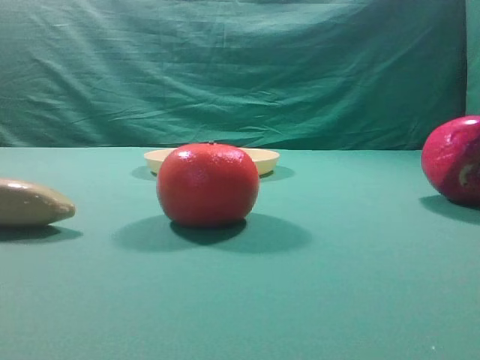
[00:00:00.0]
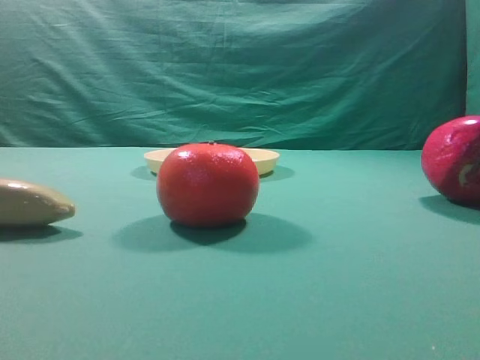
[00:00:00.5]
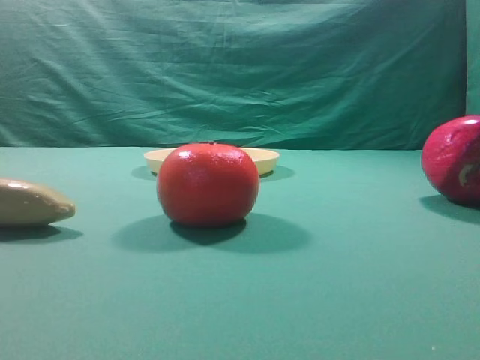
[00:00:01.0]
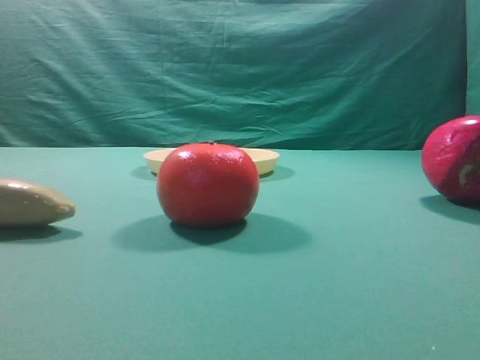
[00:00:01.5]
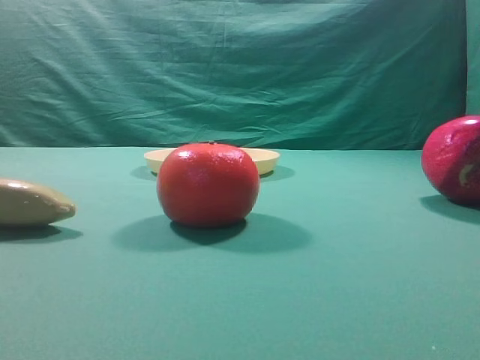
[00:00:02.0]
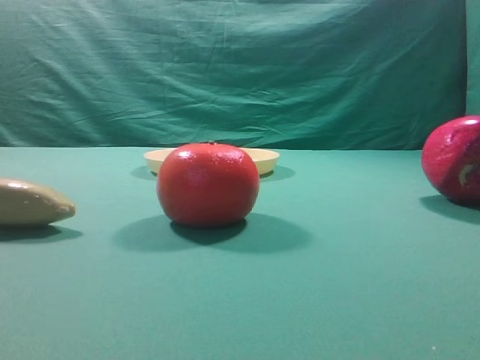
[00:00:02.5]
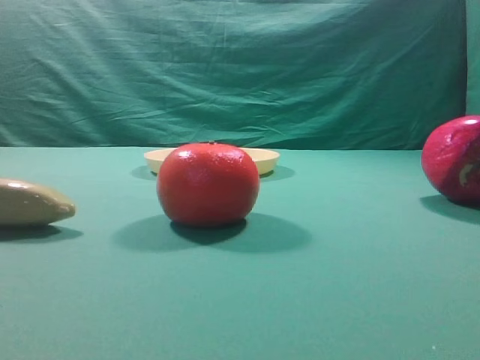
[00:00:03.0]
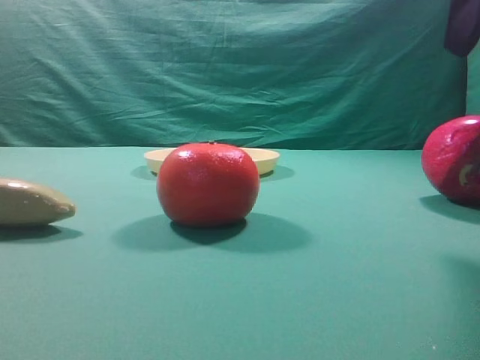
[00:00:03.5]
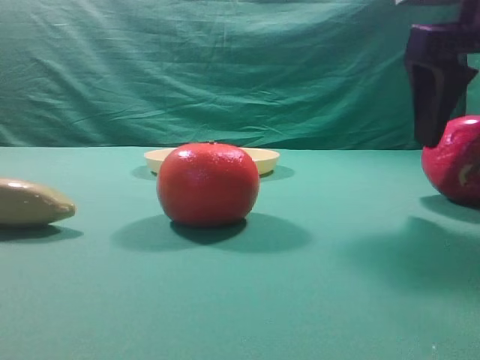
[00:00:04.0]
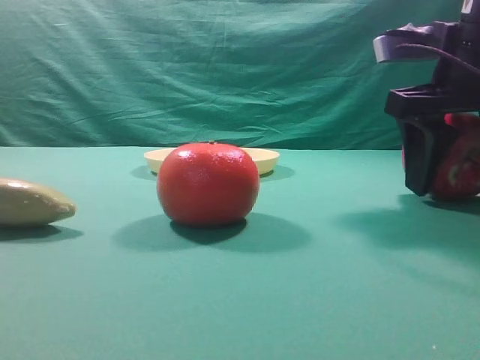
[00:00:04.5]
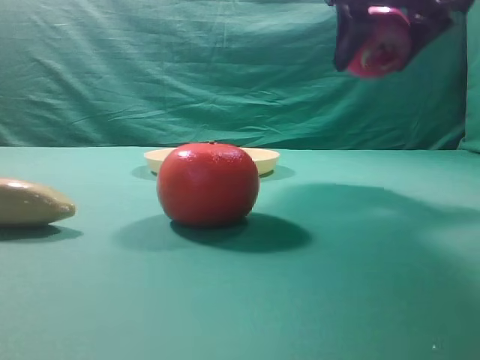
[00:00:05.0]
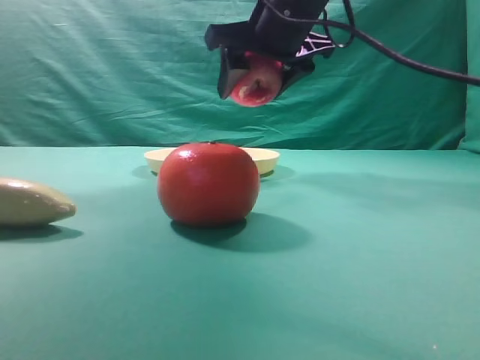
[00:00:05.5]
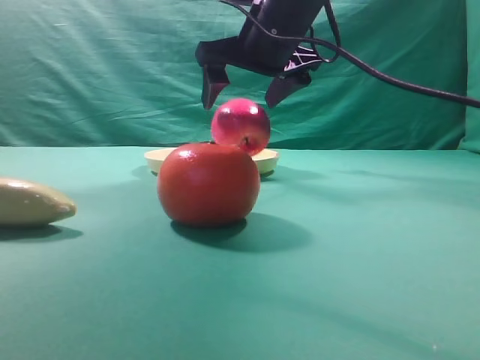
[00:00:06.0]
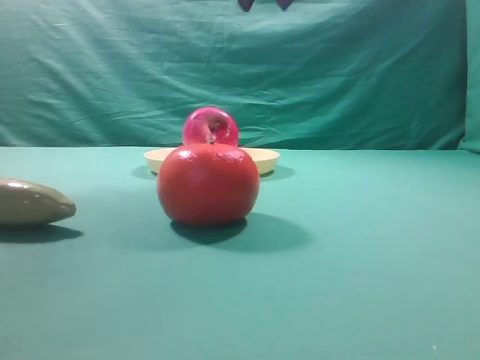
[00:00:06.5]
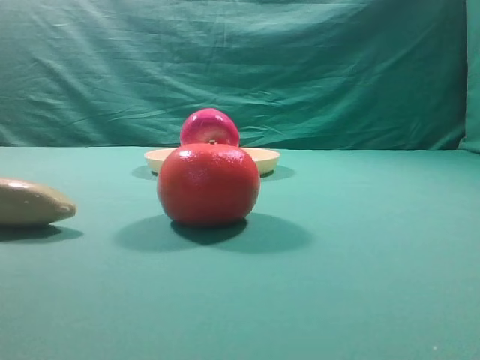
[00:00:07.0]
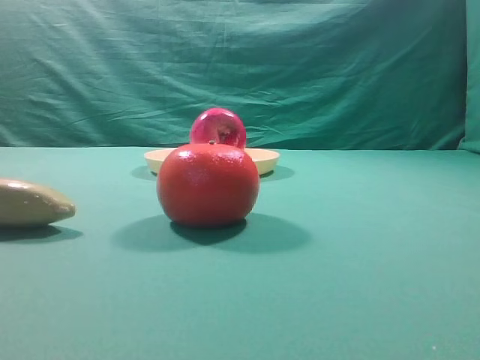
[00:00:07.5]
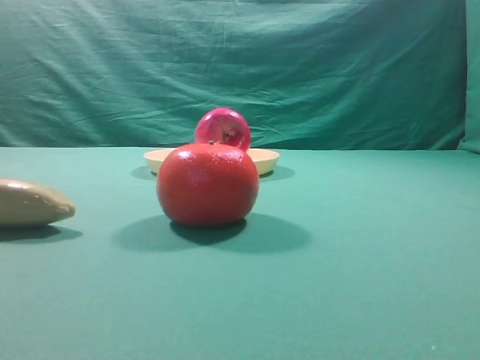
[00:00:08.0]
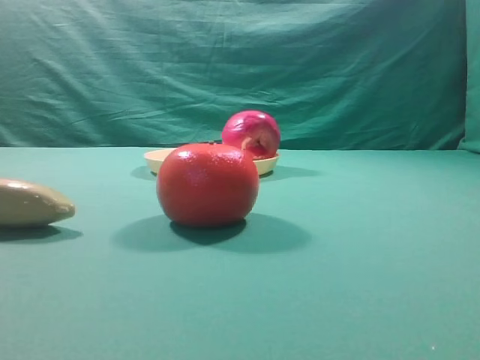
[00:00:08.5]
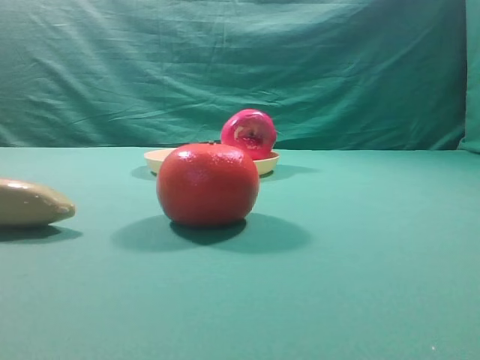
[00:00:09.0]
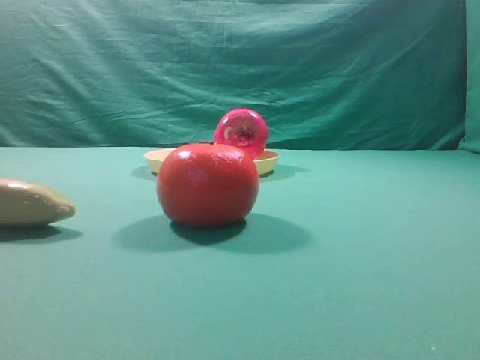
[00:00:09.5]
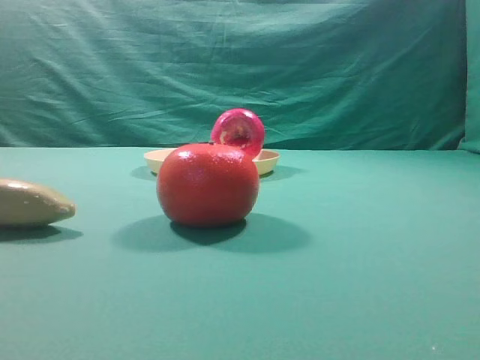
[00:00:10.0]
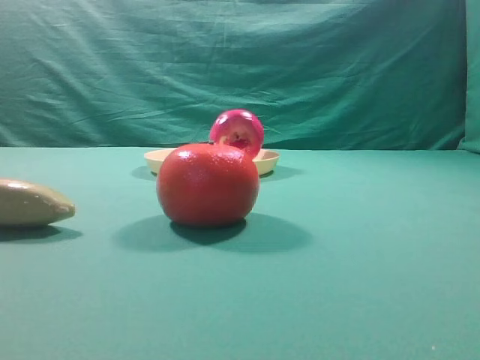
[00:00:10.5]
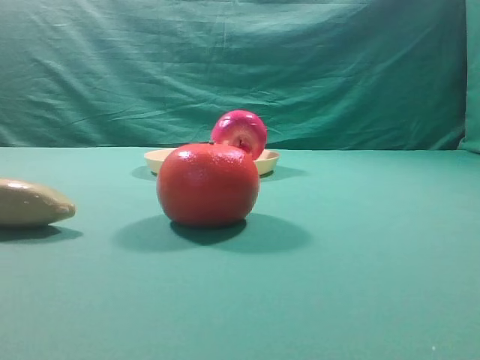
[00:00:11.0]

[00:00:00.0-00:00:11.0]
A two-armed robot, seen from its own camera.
Task of the whole recording: grasp the apple and place it into the yellow plate.
Step, 00:00:00.0 to 00:00:04.5: Grasp the fruit that can keep the doctor away.
Step, 00:00:05.0 to 00:00:06.0: Place the picked object into the yellow plate.

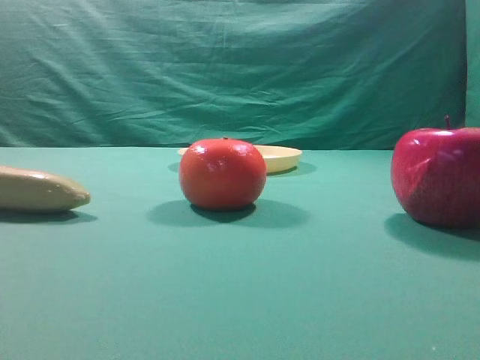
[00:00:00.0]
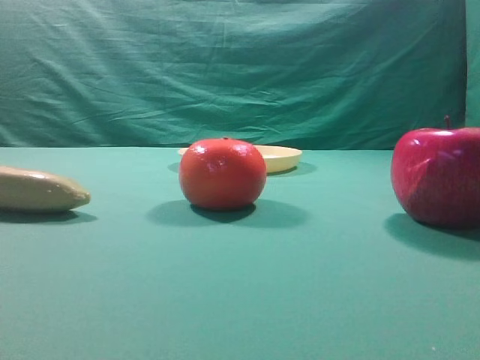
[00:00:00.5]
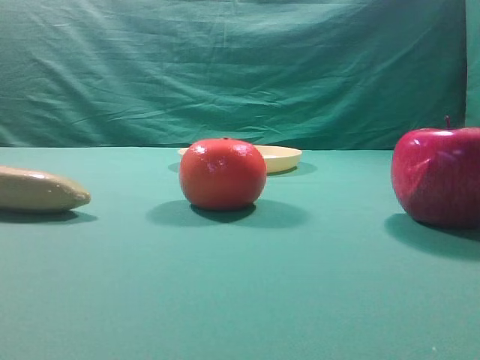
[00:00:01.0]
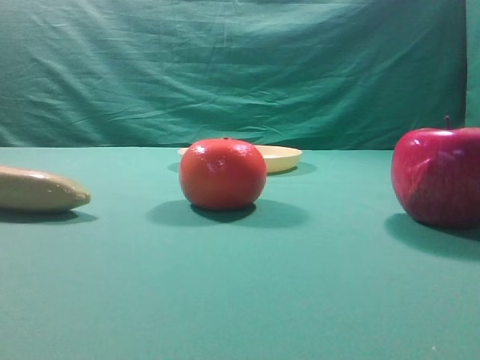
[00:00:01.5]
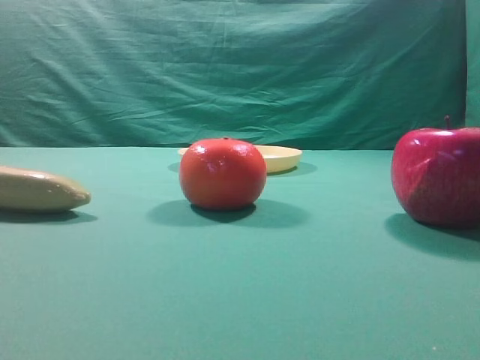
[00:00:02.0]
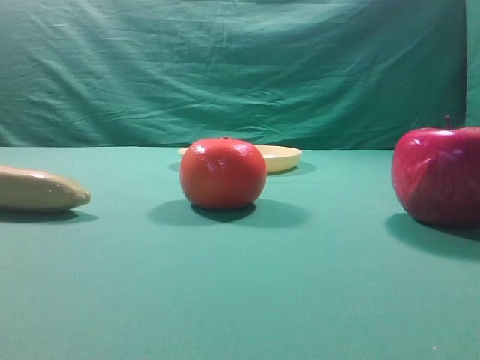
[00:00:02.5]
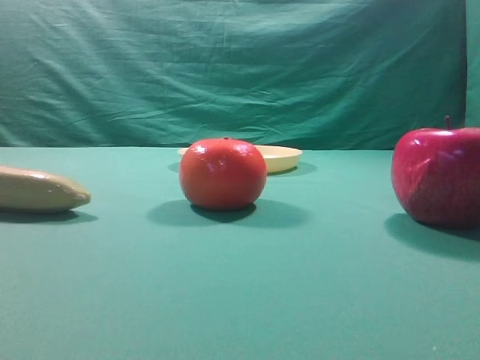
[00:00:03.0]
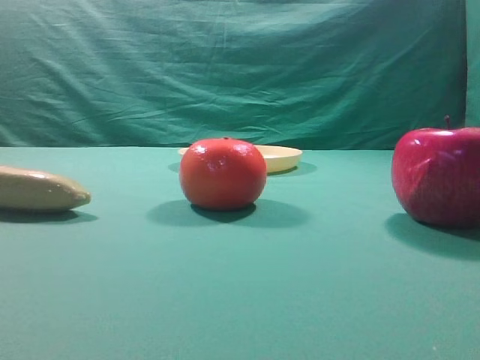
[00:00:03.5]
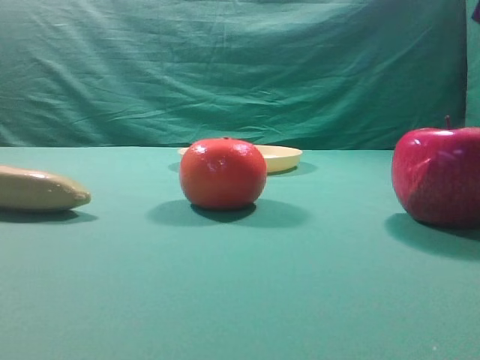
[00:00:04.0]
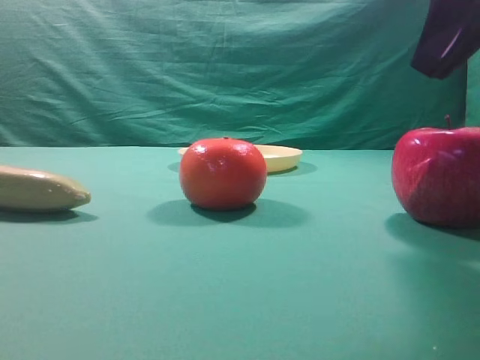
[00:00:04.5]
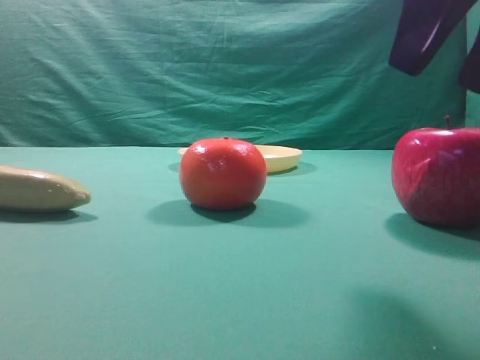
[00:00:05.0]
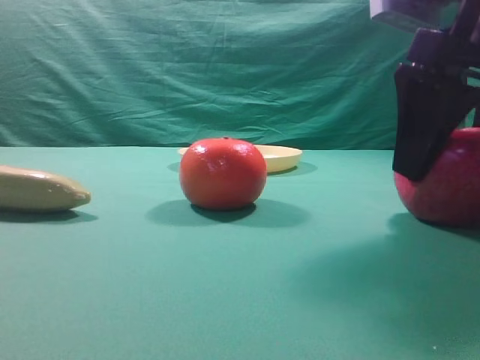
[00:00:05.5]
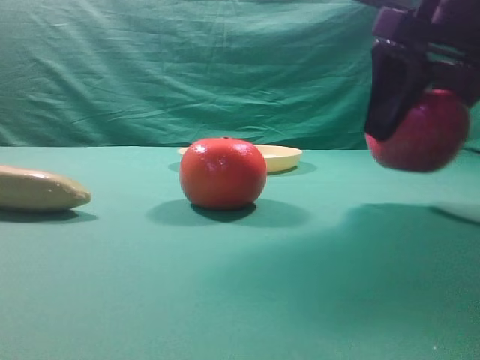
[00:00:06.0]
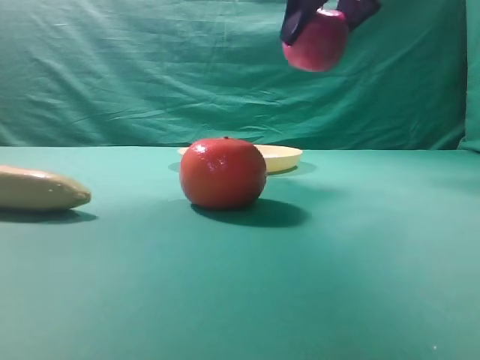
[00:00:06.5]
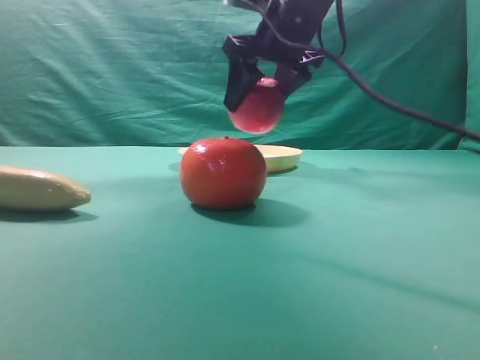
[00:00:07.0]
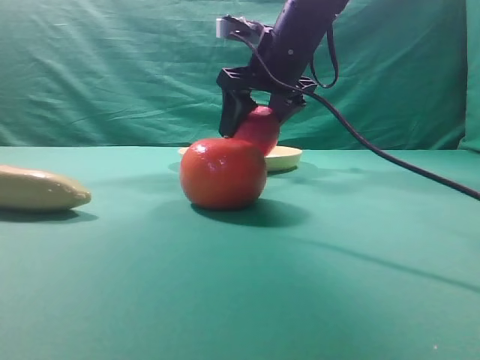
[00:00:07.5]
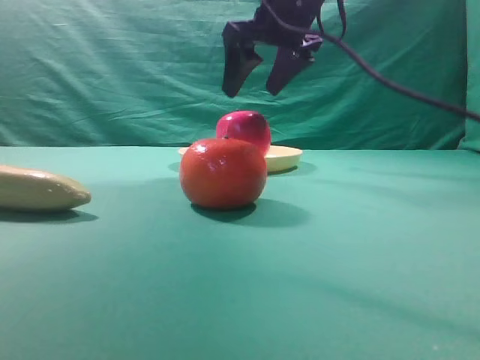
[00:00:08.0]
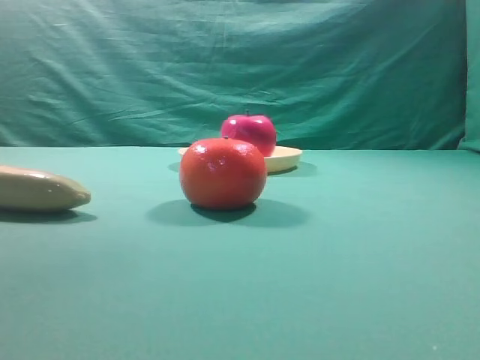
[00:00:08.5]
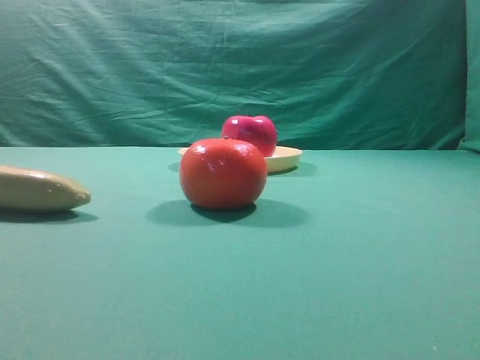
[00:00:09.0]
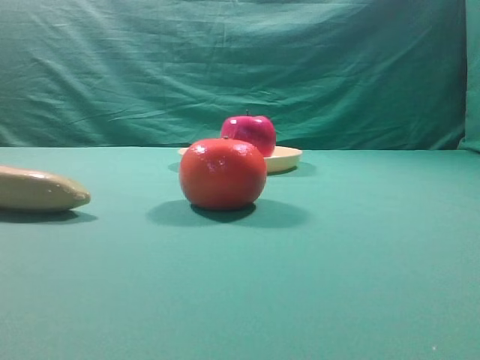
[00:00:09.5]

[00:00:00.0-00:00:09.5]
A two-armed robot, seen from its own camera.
Task of the whole recording: grasp the apple and place it into the yellow plate.
Step, 00:00:00.0 to 00:00:06.0: Grasp the fruit that can keep the doctor away.
Step, 00:00:06.5 to 00:00:08.0: Place the picked object into the yellow plate.
